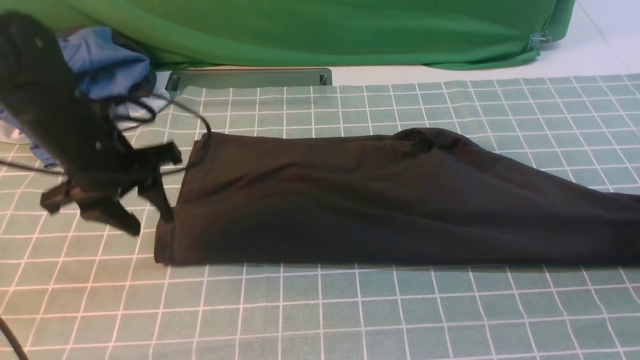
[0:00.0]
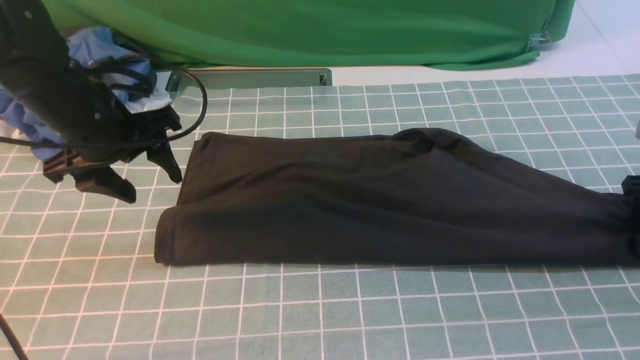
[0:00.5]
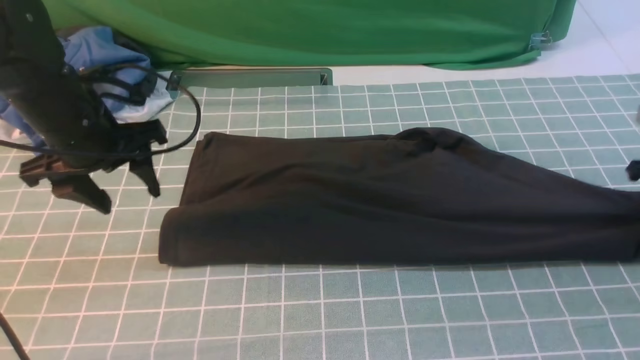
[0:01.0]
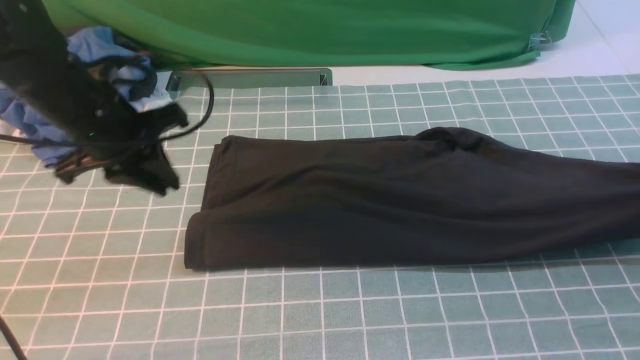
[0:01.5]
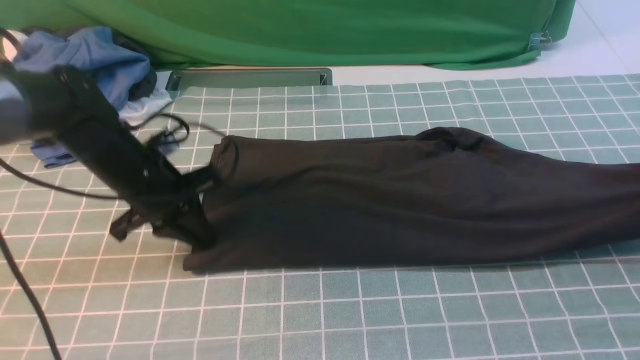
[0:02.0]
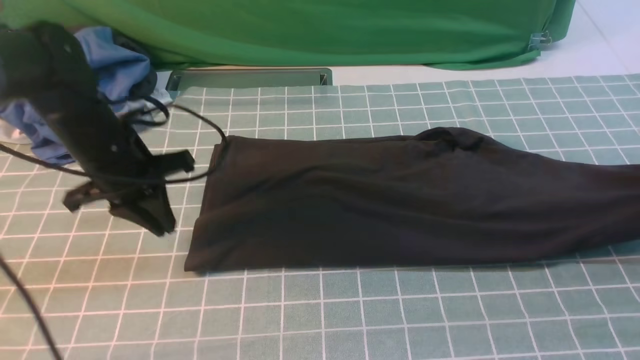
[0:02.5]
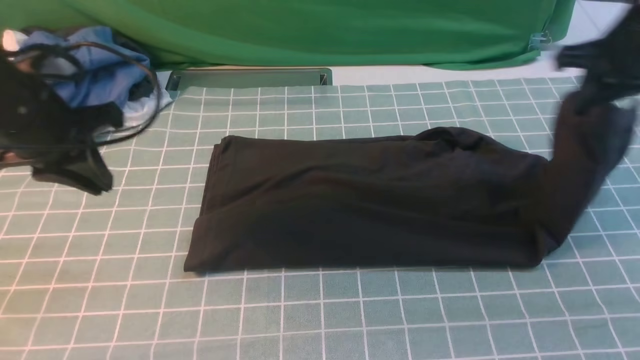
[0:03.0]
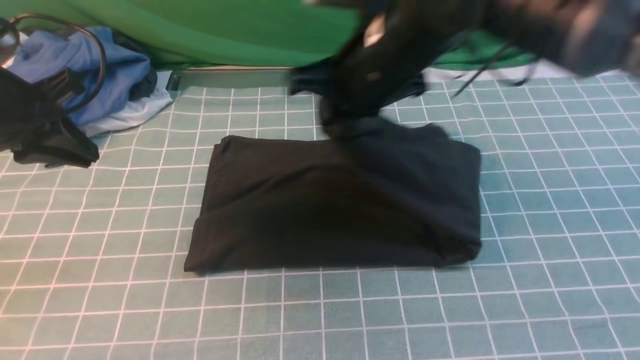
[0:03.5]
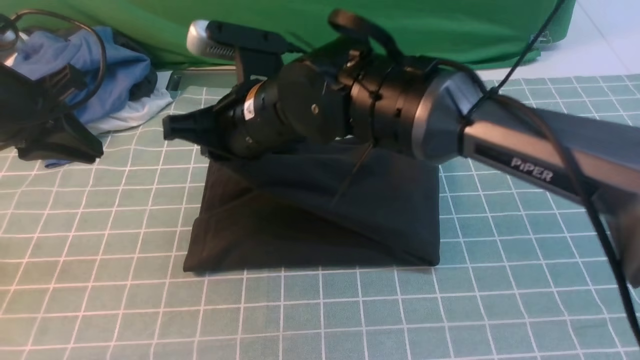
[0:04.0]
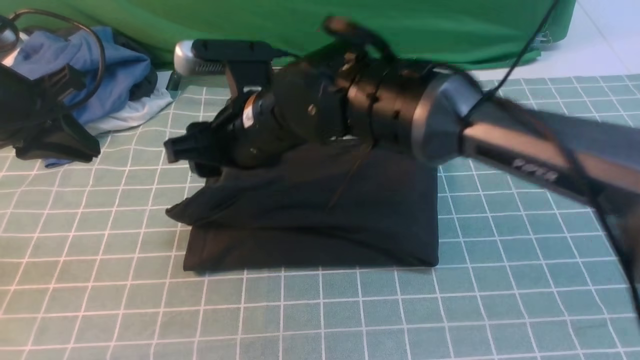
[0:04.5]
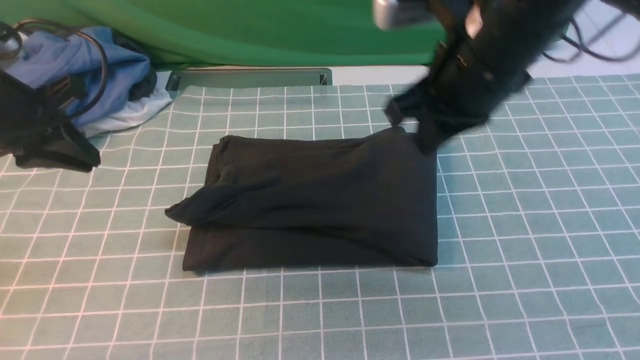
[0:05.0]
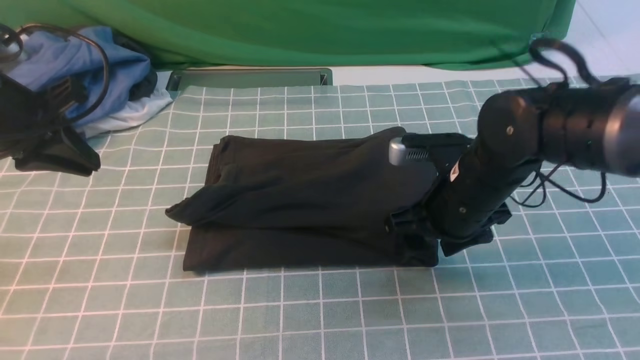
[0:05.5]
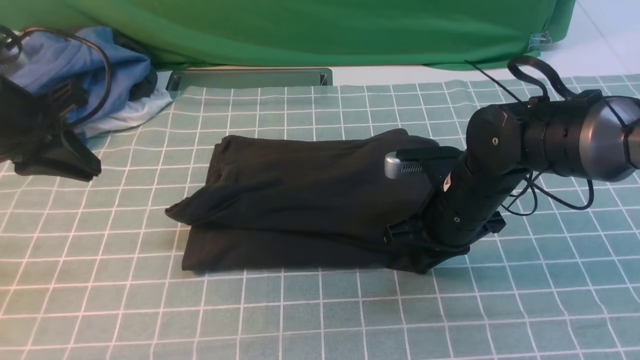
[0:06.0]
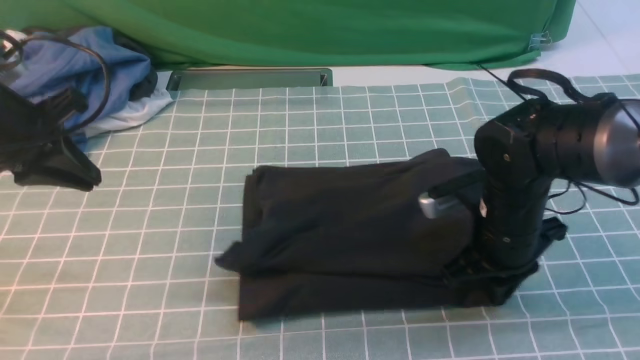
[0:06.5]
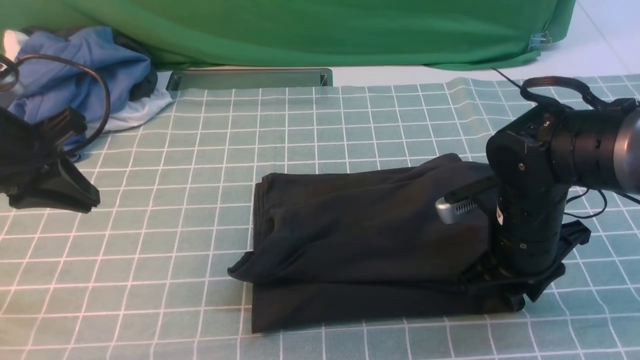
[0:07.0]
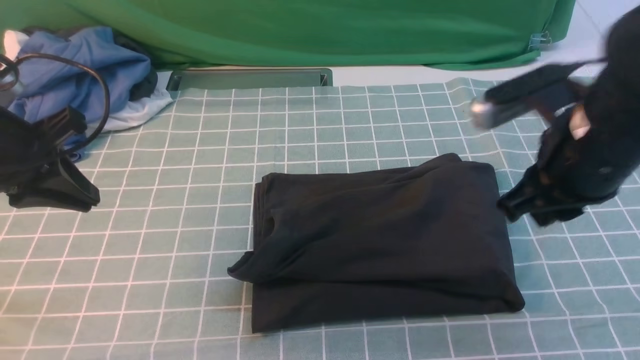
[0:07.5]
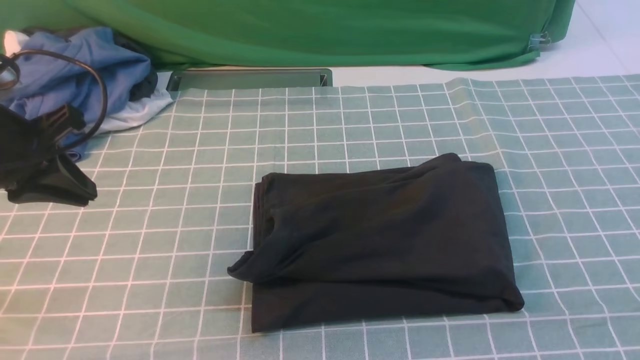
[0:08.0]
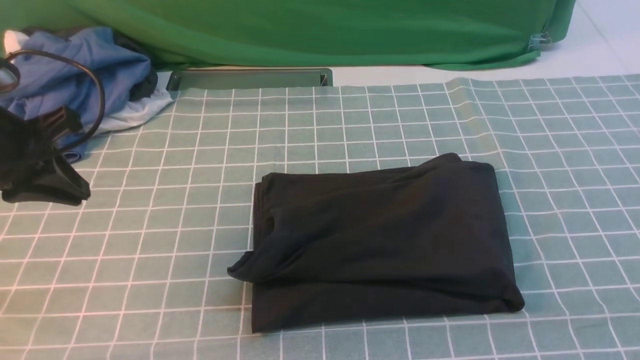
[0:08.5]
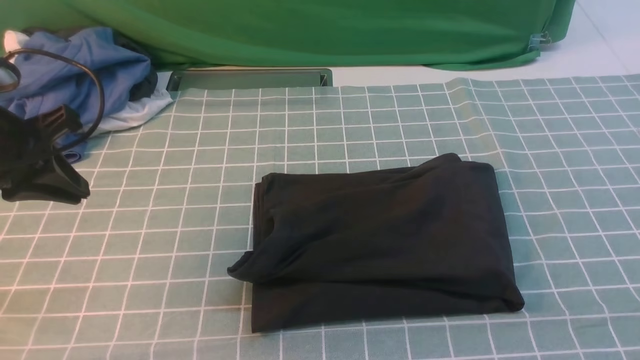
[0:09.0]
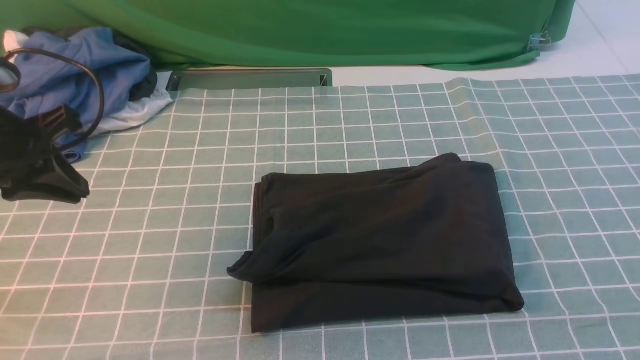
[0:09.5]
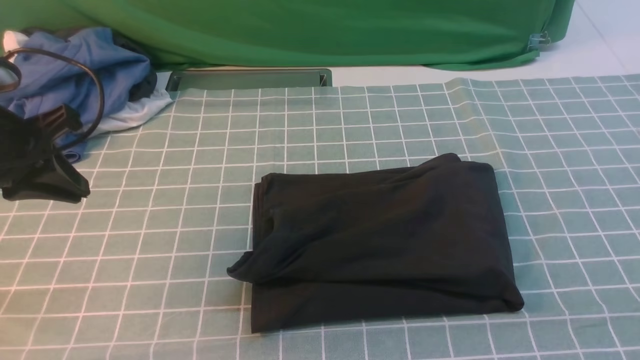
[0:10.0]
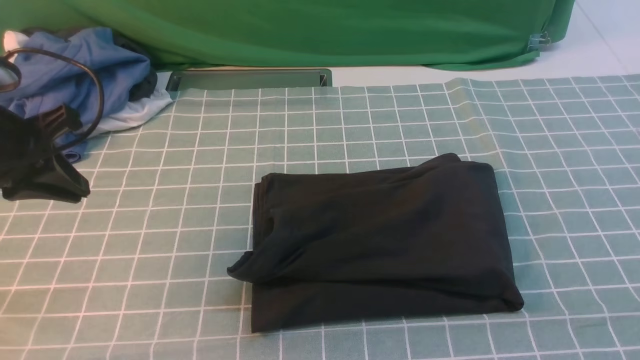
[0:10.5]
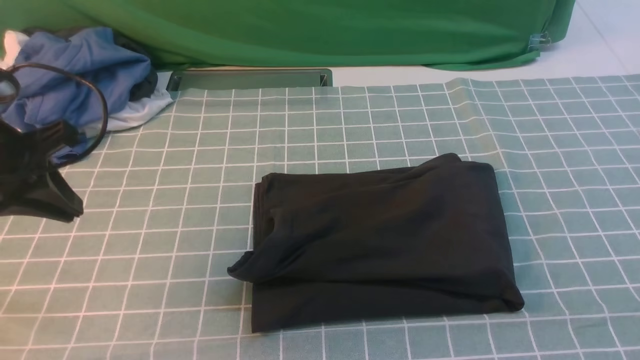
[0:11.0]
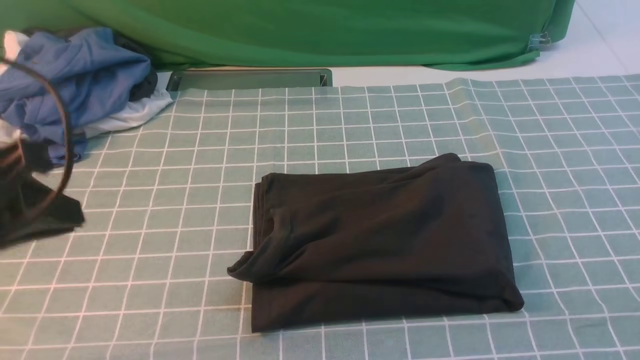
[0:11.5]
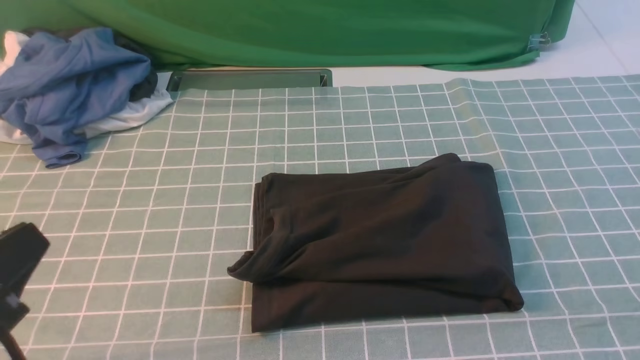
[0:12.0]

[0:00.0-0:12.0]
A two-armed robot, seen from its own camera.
Step, 0:01.5 to 0:04.5: use the right arm to drag the right edge of the fabric to the left and folds it over the left edge.
0:00.0 to 0:02.0: The left gripper is displaced downward by roughly 5 cm, and closes, while the right gripper closes up.
0:02.0 to 0:04.0: The right gripper goes approximately 50 cm to the left. Meanwhile the left gripper shifts approximately 15 cm upward and to the left.
0:04.0 to 0:06.0: The right gripper heads to the right and downward, covering some 20 cm, and opens, then closes once more.
0:06.0 to 0:08.0: The right gripper moves upward, backward and to the right, some 40 cm.
0:10.0 to 0:12.0: The left gripper shifts roughly 25 cm backward. The right gripper moves downward, some 10 cm.

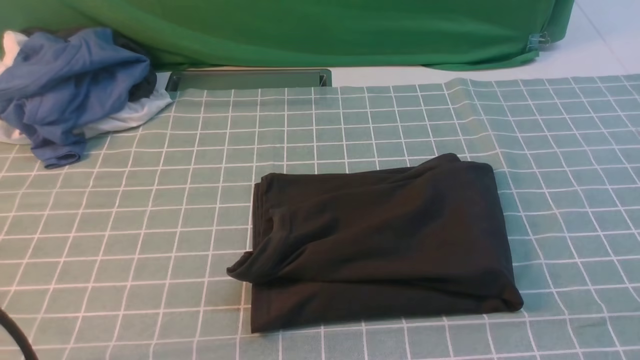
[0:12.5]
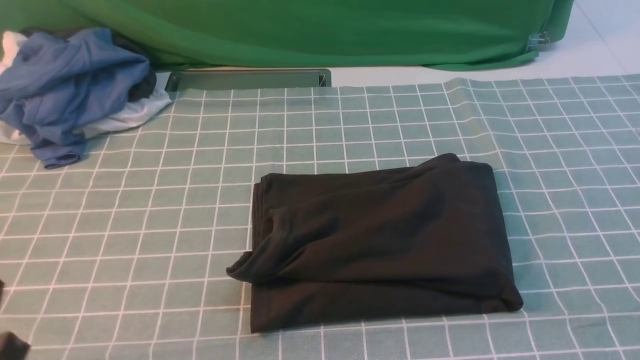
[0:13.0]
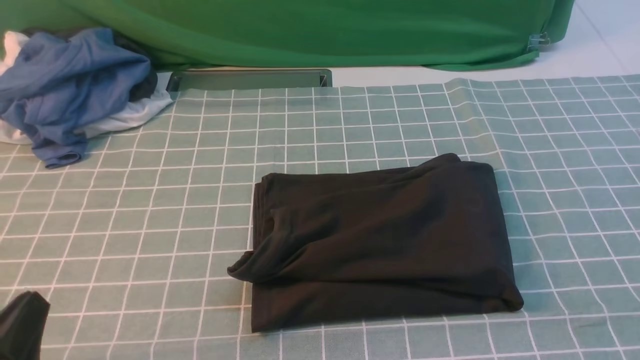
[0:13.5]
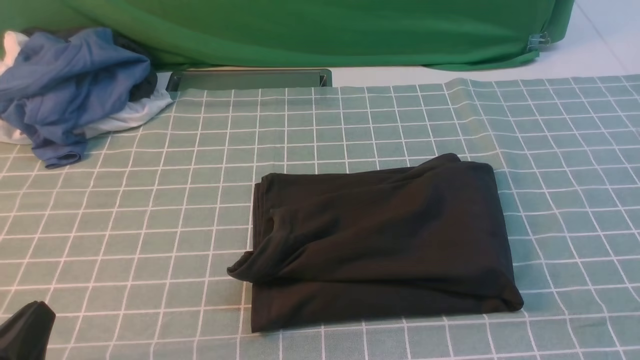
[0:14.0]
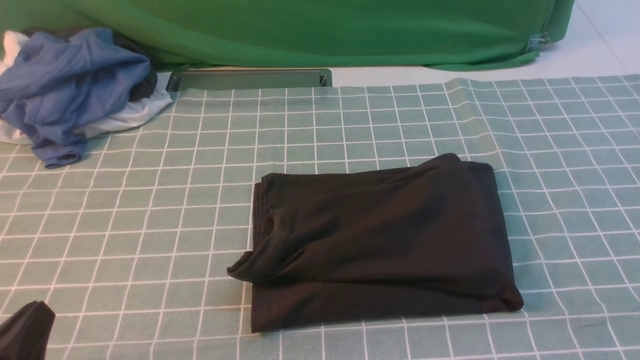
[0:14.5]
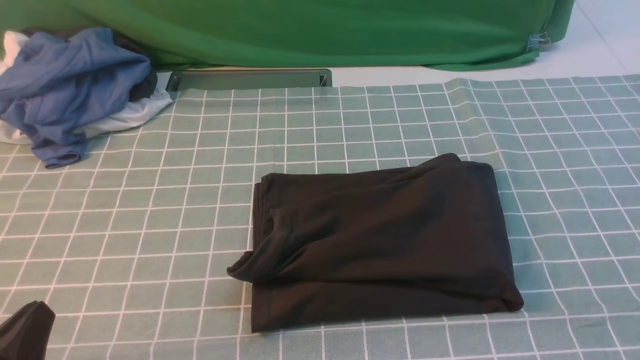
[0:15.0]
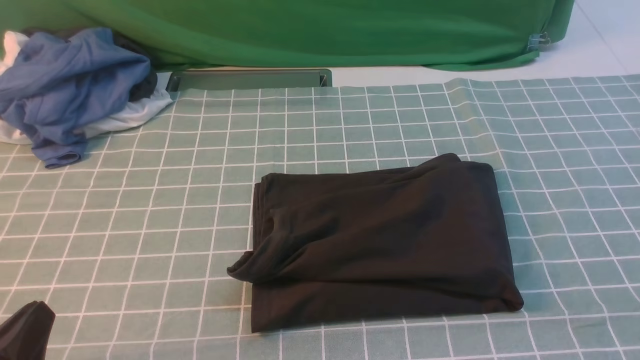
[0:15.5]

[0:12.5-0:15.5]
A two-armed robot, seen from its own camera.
0:12.5 to 0:14.0: The left gripper is displaced downward by about 10 cm.
0:14.0 to 0:15.5: Both grippers stay about where they are.
